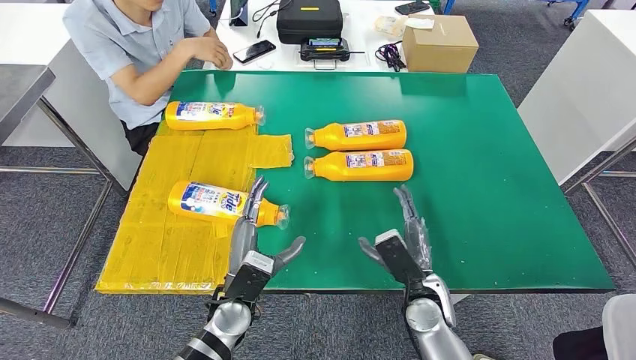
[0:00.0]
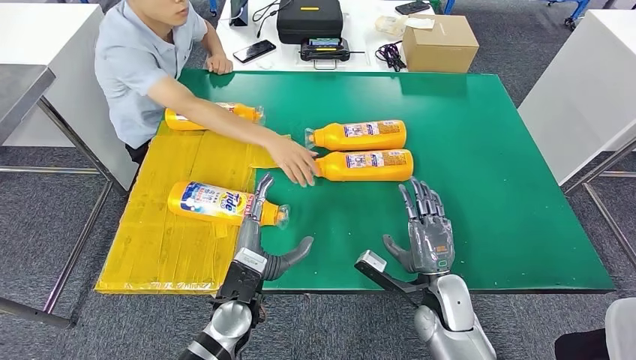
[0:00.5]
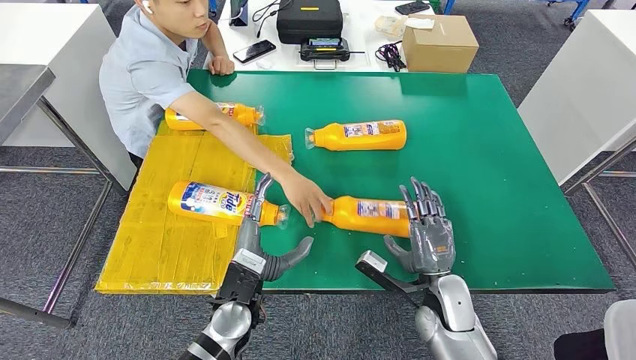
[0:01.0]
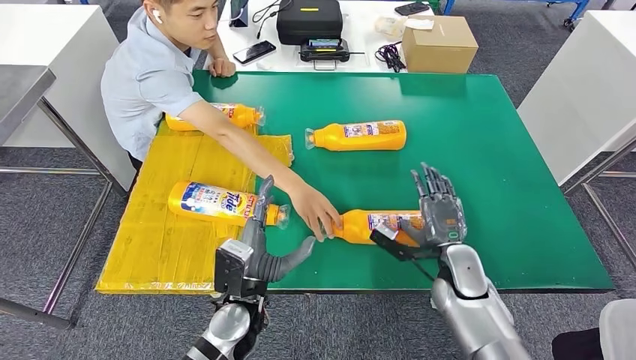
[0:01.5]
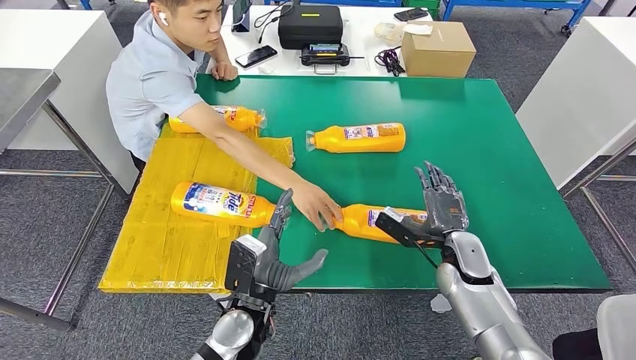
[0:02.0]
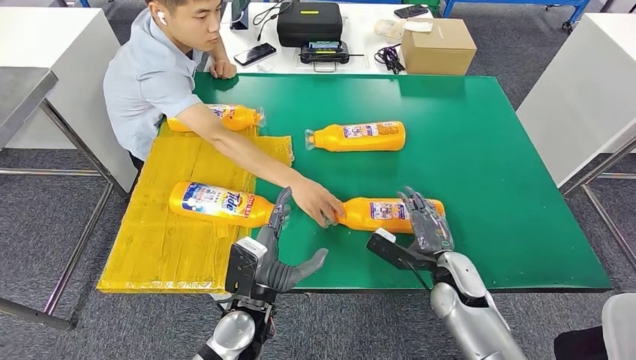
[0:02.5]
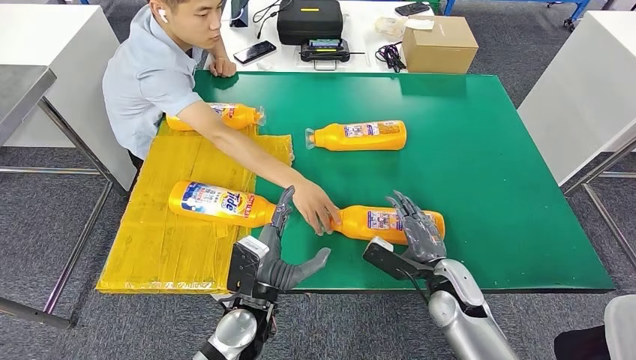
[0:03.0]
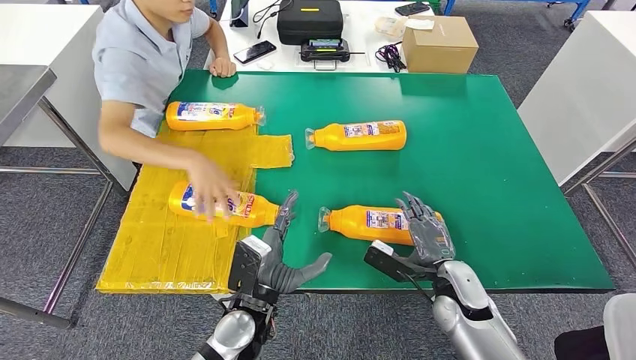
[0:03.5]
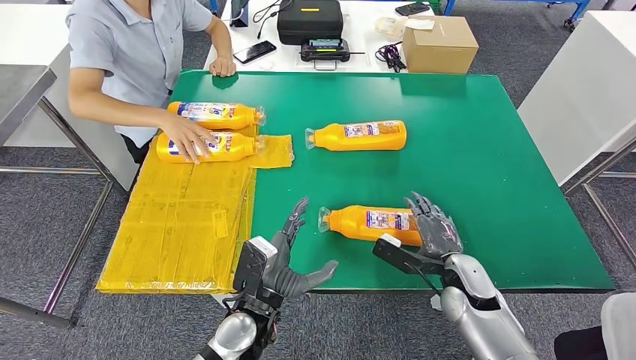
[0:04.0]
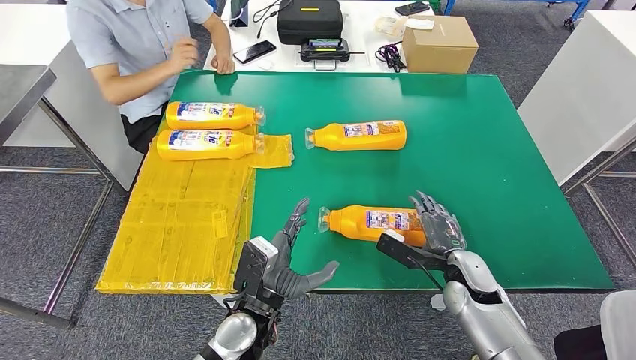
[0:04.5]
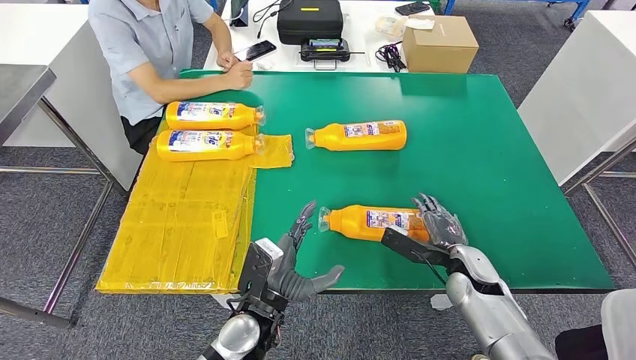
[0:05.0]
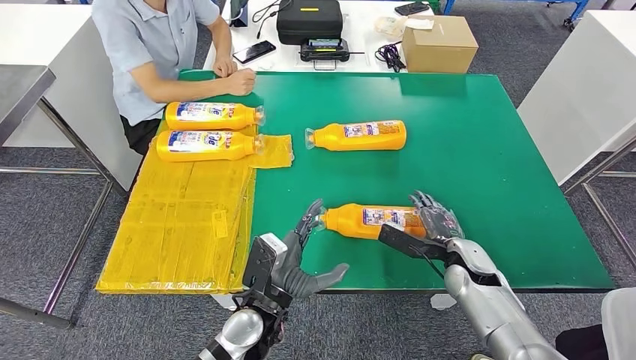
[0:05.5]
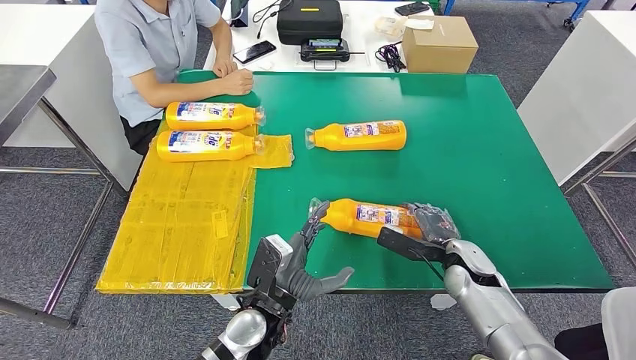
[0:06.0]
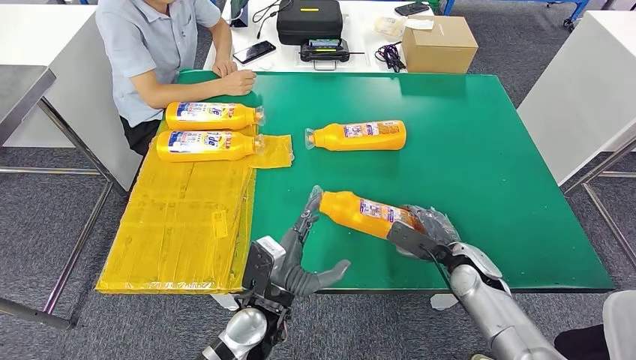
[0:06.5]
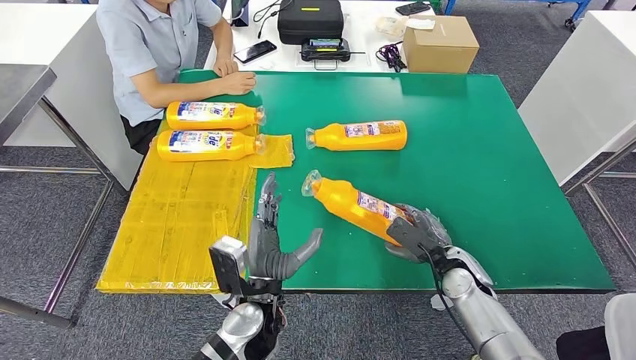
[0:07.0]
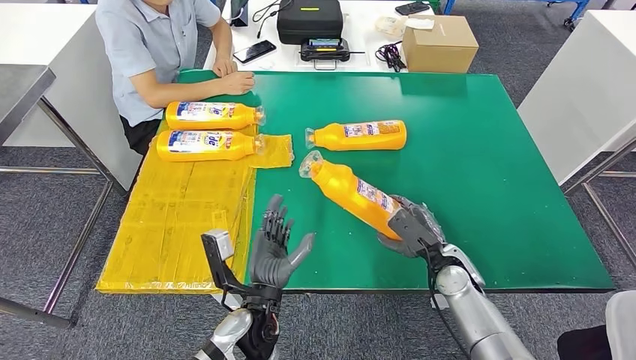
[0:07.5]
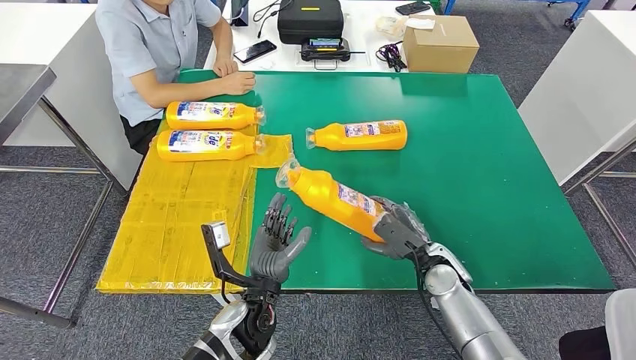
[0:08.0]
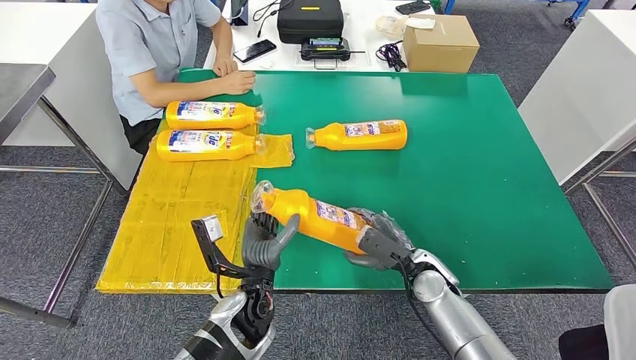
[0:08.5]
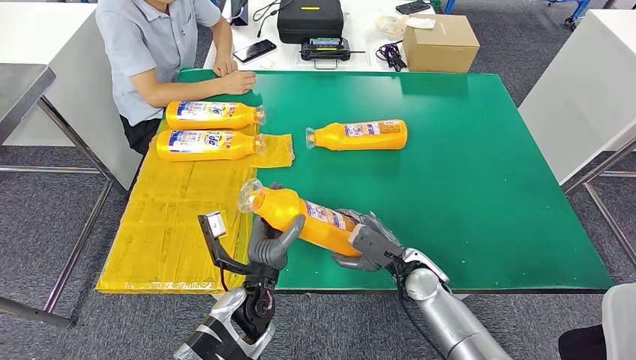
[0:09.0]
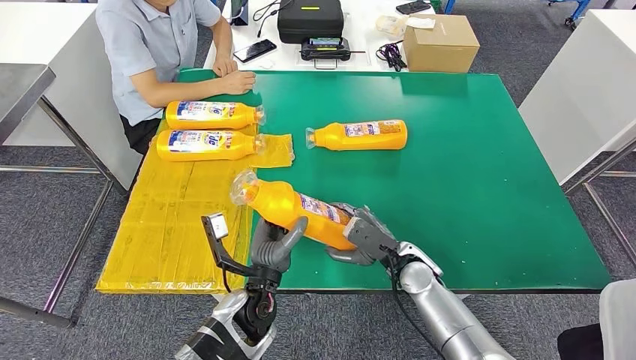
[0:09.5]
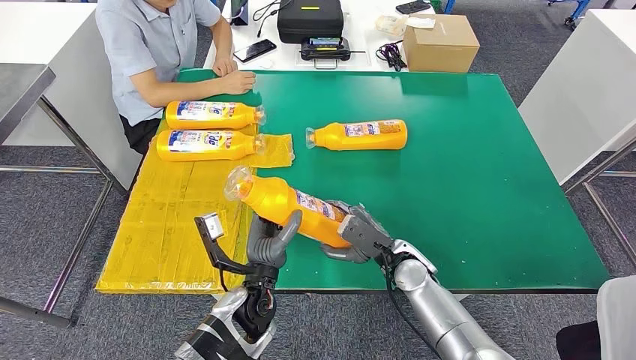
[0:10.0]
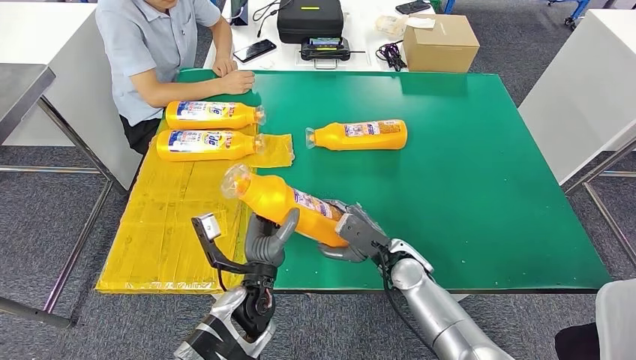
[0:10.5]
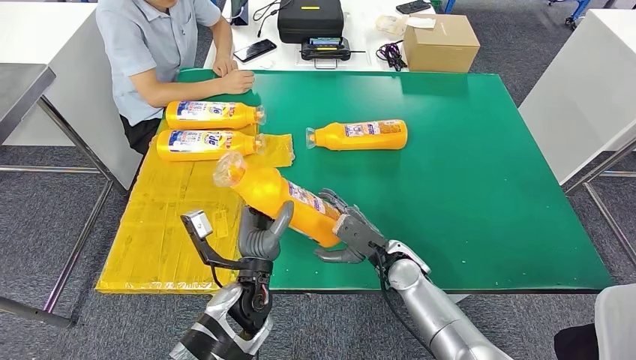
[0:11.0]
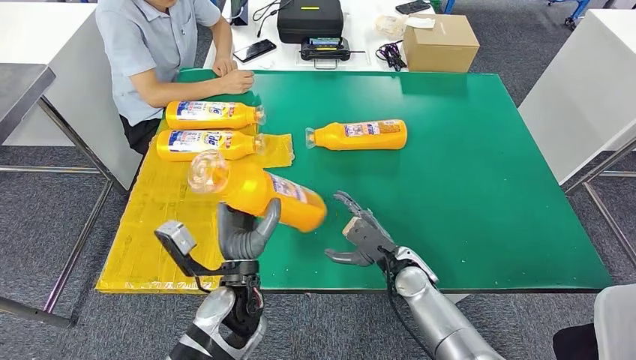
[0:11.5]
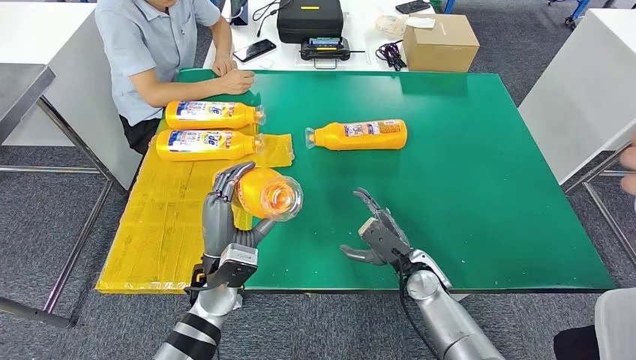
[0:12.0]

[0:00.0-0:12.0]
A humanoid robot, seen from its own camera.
Step, 0:00.0 to 0:07.5: Pick up the fast-moving consumer goods bottle from the table.
0:04.0 to 0:06.0: The hands make only small movements.
0:06.0 to 0:08.0: The right hand shifts some 5 cm to the left.
0:08.0 to 0:10.0: The right hand moves to the left, approximately 5 cm.
0:10.0 to 0:12.0: The left hand moves to the left, about 5 cm.

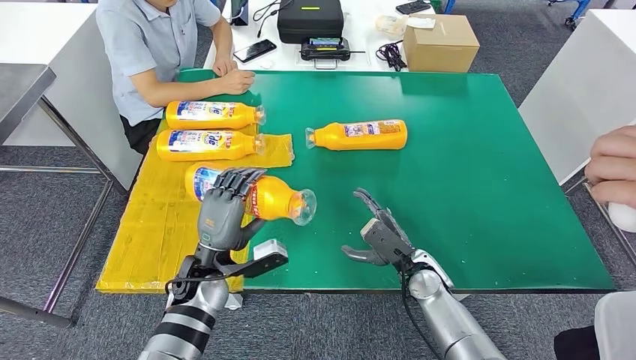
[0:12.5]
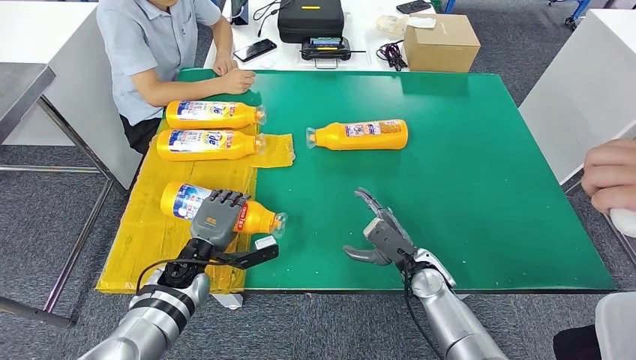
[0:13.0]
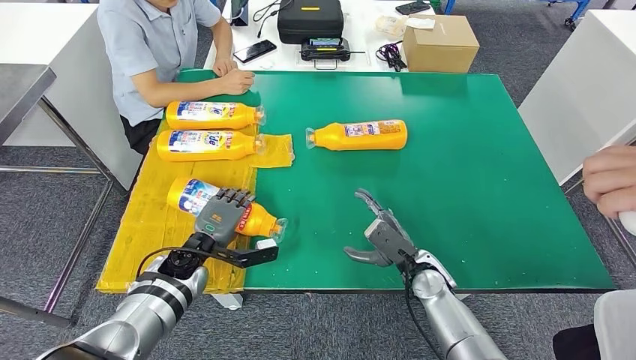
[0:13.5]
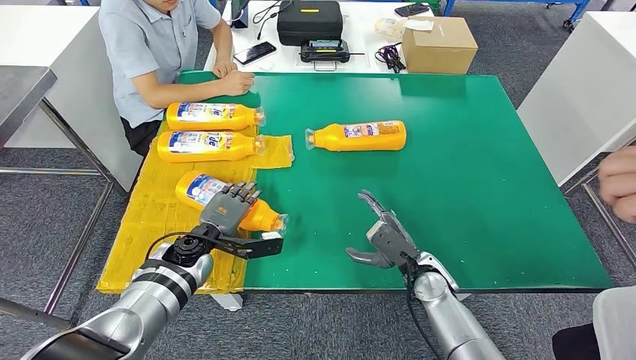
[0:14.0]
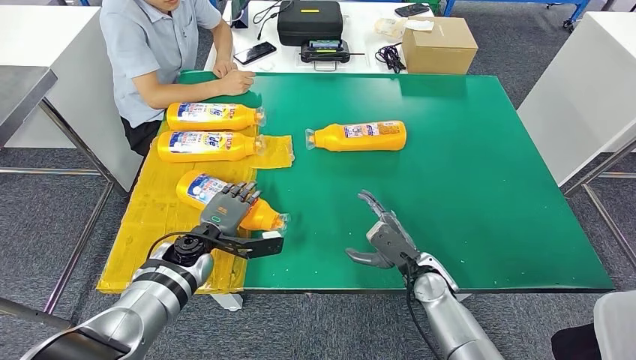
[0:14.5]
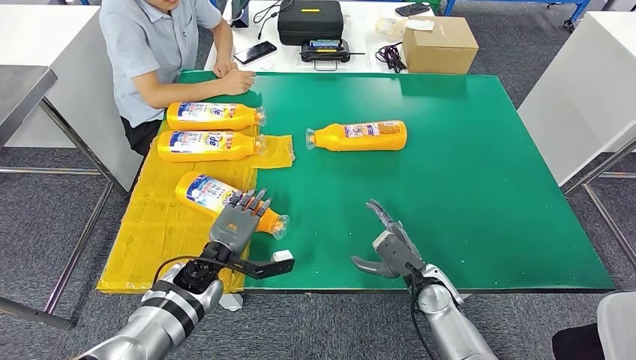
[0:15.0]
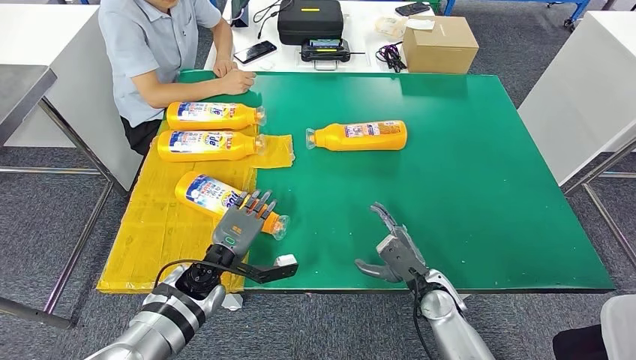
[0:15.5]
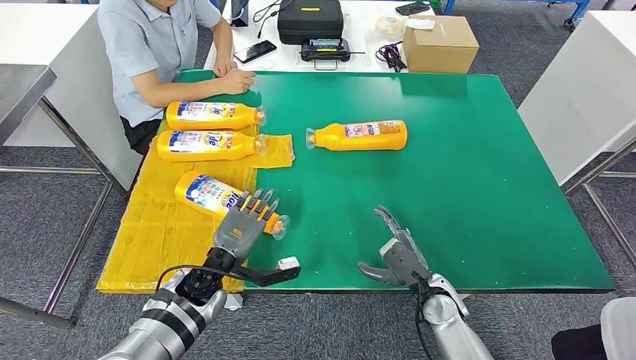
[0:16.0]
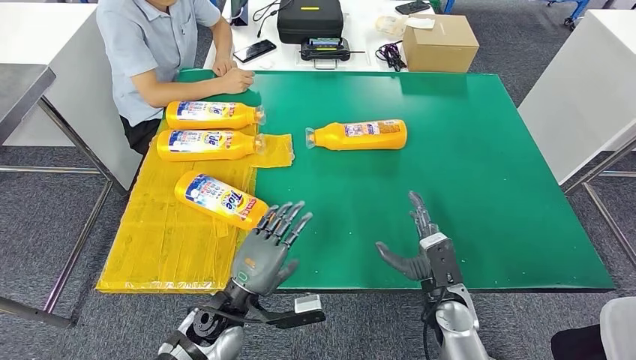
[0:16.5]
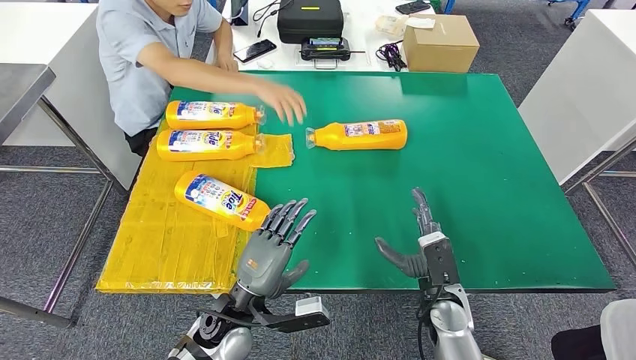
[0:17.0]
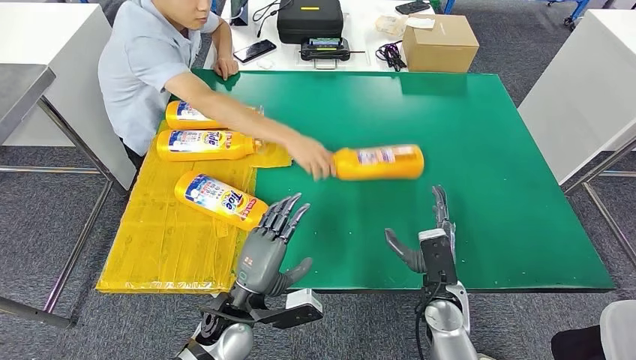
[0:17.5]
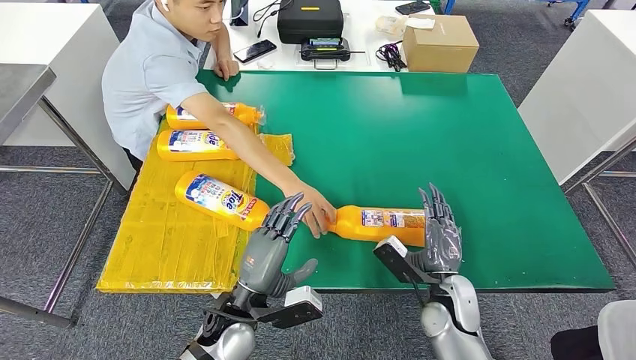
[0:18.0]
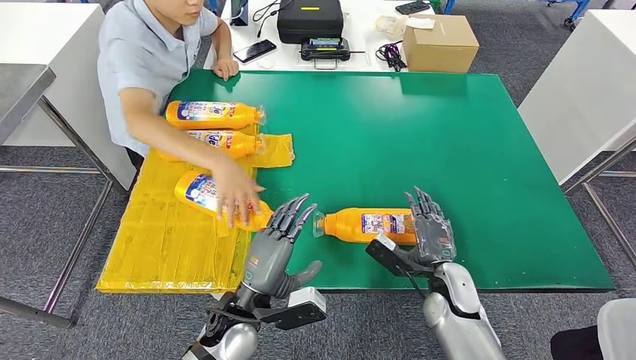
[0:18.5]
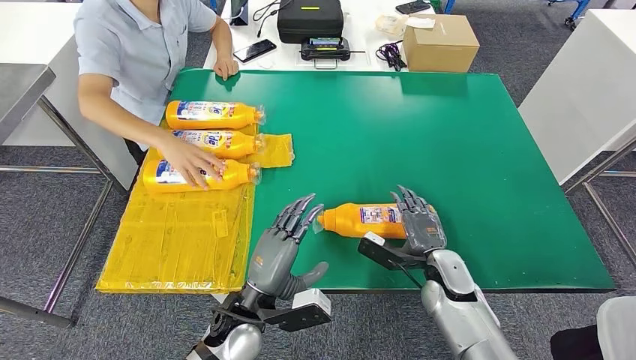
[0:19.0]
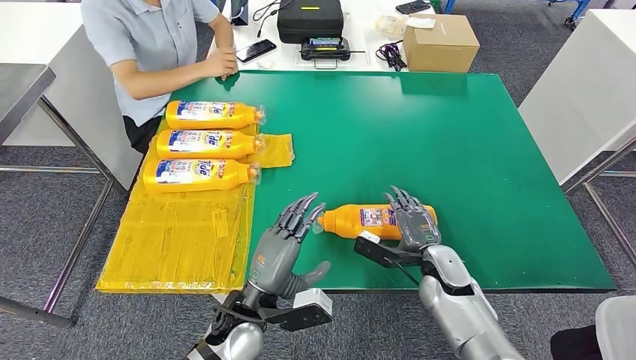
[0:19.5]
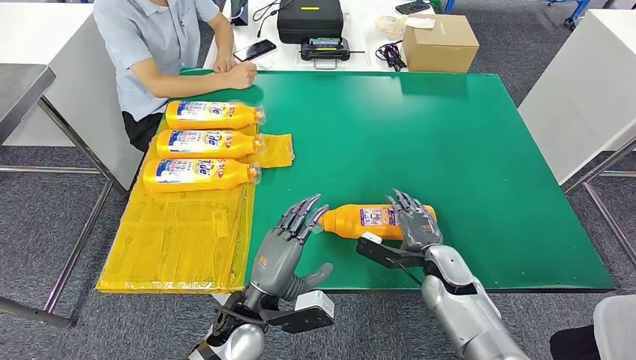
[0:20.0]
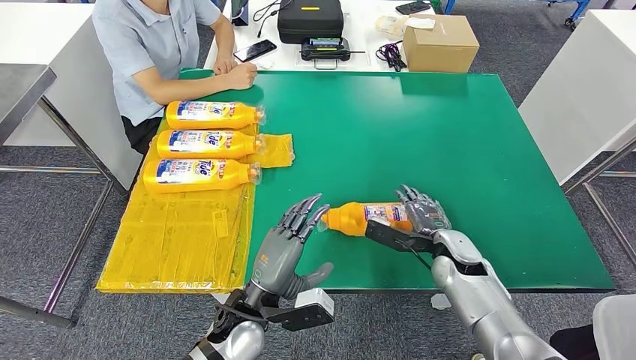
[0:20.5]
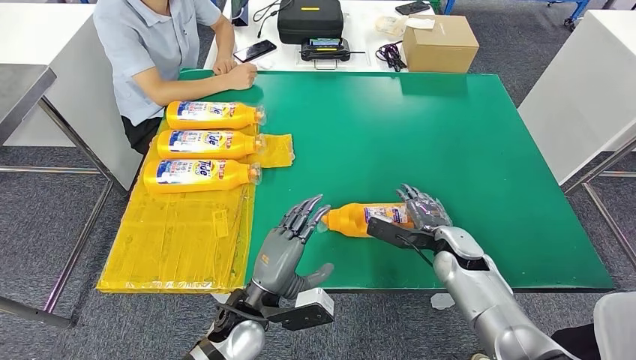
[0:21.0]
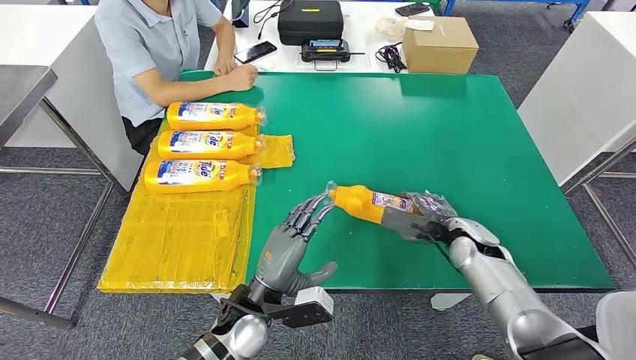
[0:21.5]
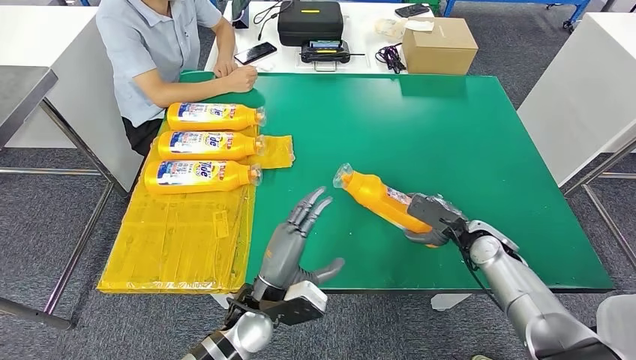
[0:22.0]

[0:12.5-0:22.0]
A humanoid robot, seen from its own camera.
0:12.5 to 0:14.5: The left hand moves forward, roughly 5 cm.
0:14.5 to 0:16.5: The left hand is displaced backward and to the right by some 15 cm; the right hand ends up some 5 cm from where it was.
0:18.0 to 0:20.0: The right hand goes roughly 5 cm forward.
